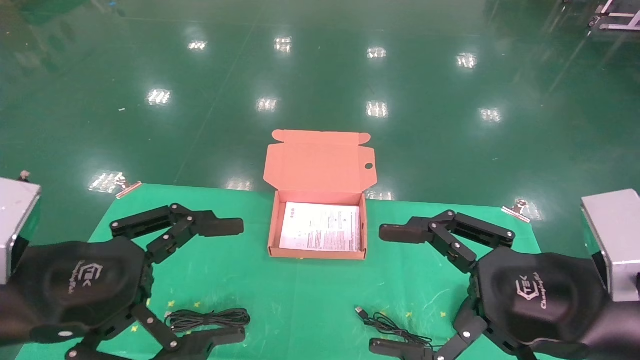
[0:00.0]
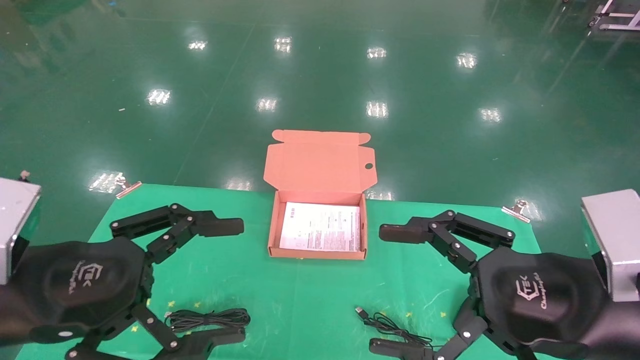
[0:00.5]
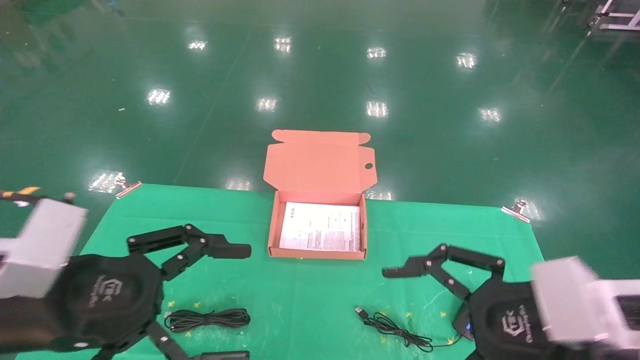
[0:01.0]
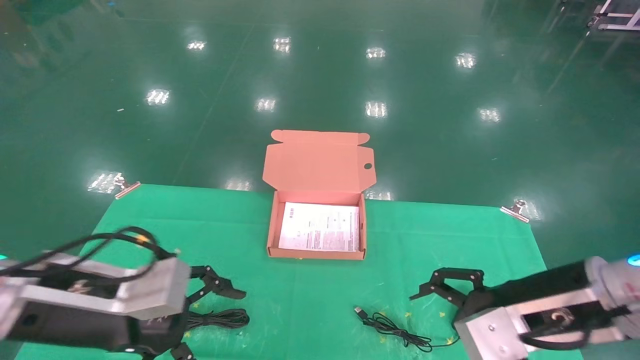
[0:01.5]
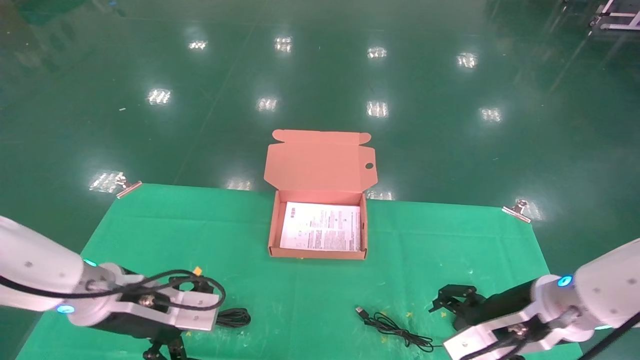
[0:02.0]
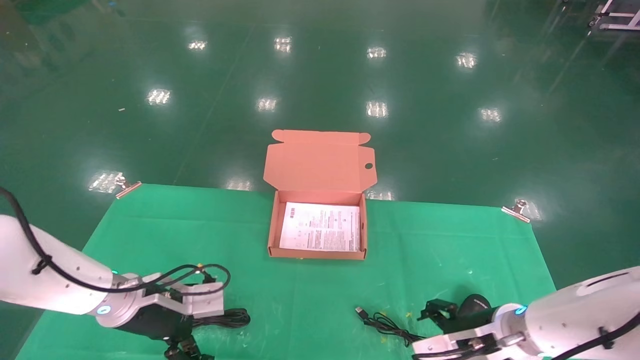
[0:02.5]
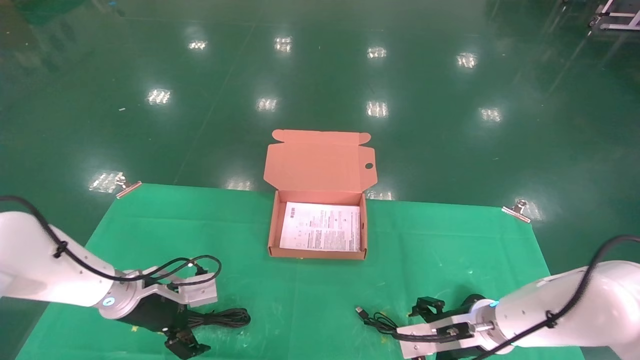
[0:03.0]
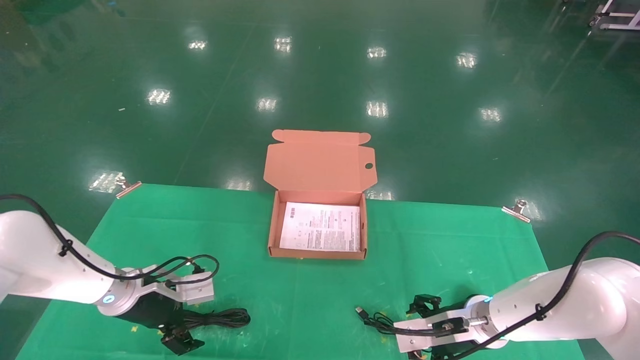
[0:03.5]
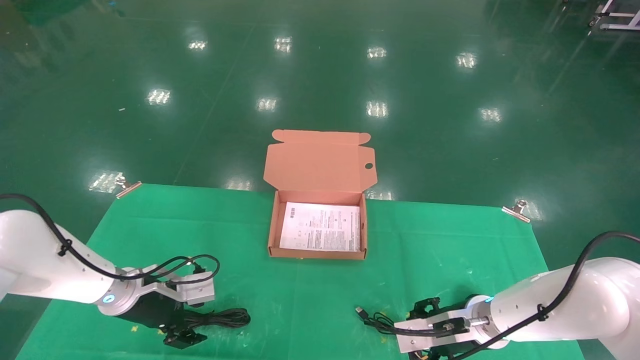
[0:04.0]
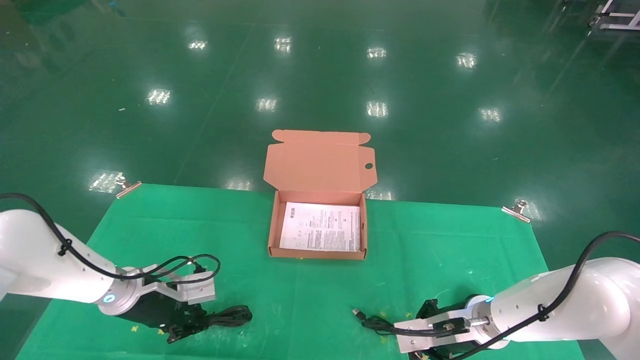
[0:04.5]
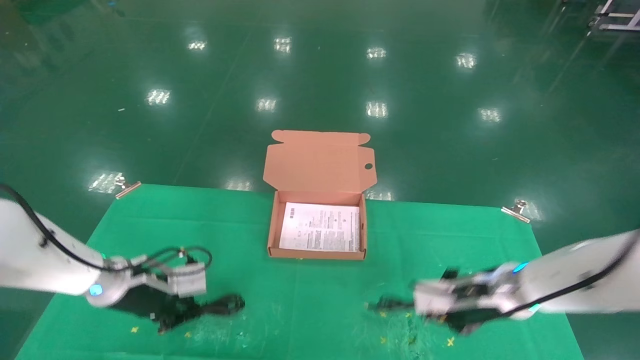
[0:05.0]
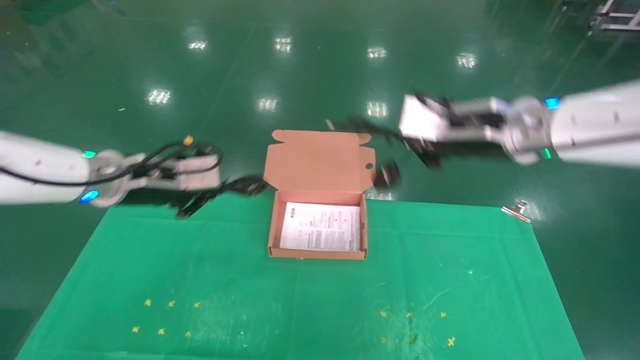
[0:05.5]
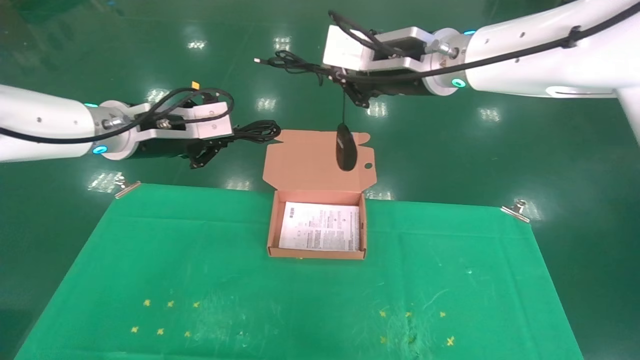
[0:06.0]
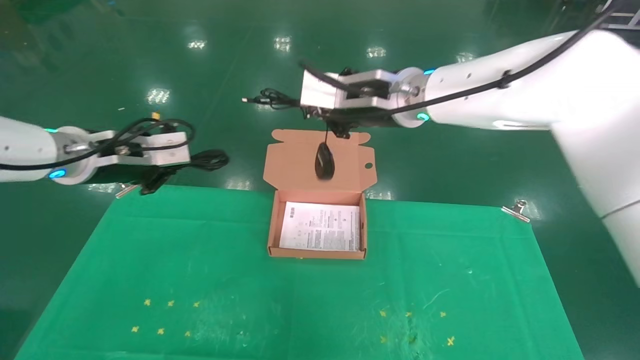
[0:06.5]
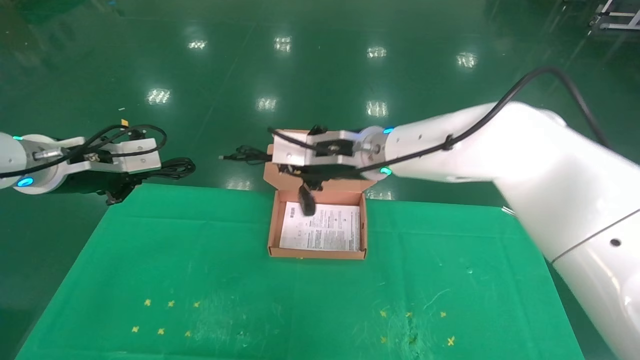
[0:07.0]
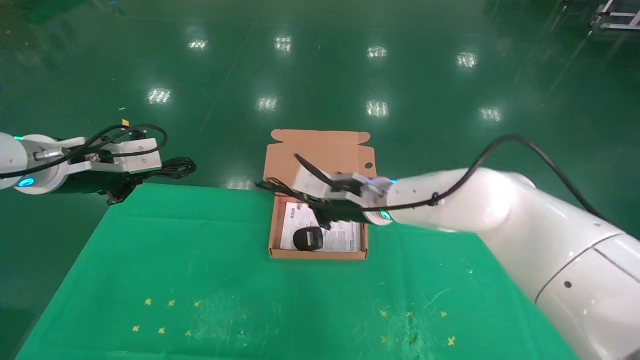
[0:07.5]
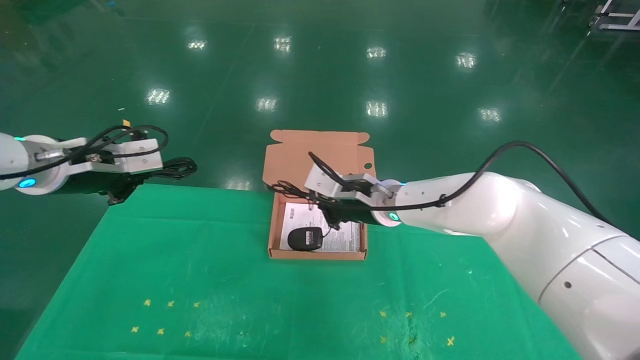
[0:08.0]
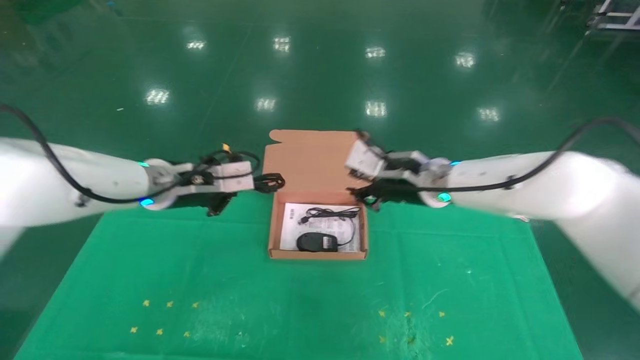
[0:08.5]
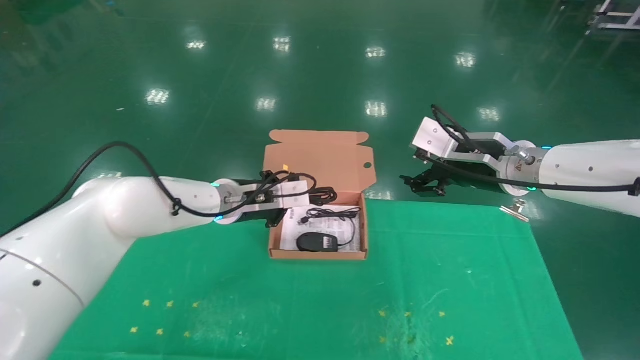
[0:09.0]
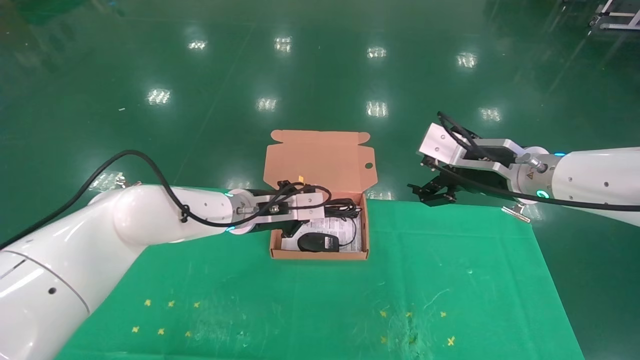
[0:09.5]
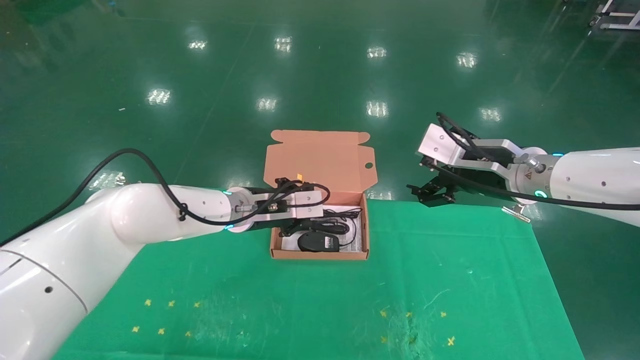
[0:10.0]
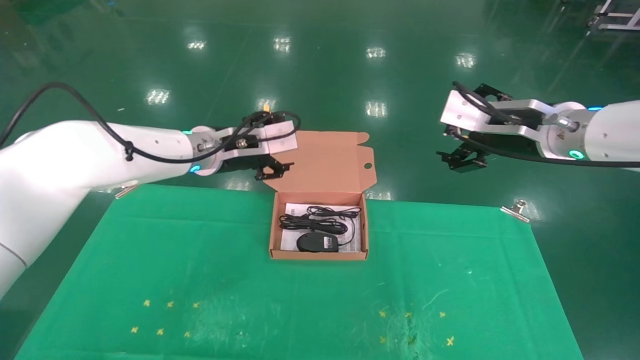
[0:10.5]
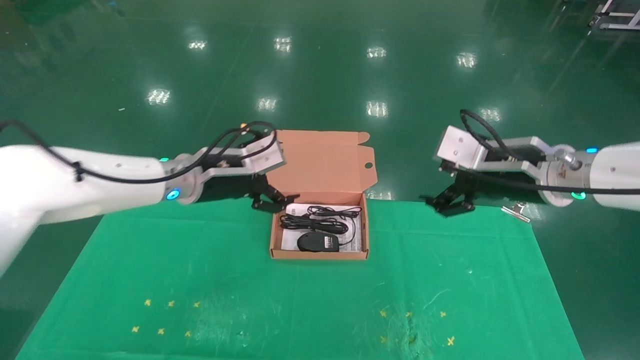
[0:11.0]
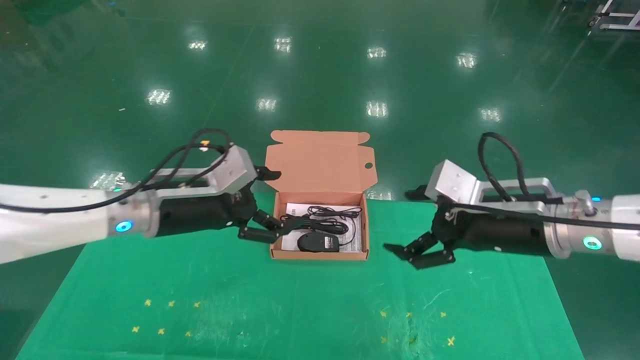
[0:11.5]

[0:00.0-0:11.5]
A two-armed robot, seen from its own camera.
Task of the whole recording: grasp data cable left put into box grasp mouse right put into box.
Step, 0:01.0 to 0:05.0: Grab and pick up both the mouse and power cord from the accessory packaging area at the same time.
Step, 0:05.5 to 0:10.5: Place the mouse and power cord into the box.
0:00.0 to 0:02.0: Both grippers move forward and downward, roughly 15 cm.
0:02.0 to 0:04.0: The right gripper shifts approximately 10 cm downward and forward; the left gripper goes approximately 10 cm forward and downward.
0:04.0 to 0:06.0: The grippers both shift upward by some 30 cm. The left gripper closes up. Meanwhile the right gripper closes its fingers.
0:06.0 to 0:07.5: The right gripper heads downward, covering some 20 cm, while the left gripper goes about 10 cm to the left.
0:07.5 to 0:09.5: The left gripper travels to the right, downward and forward by about 25 cm, while the right gripper travels to the right and backward by approximately 20 cm, and opens its fingers.
0:09.5 to 0:11.5: The right gripper heads backward, covering approximately 5 cm, while the left gripper moves to the left and backward, approximately 15 cm, and opens its fingers.

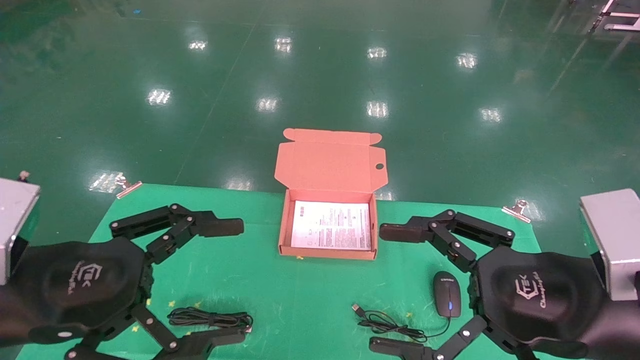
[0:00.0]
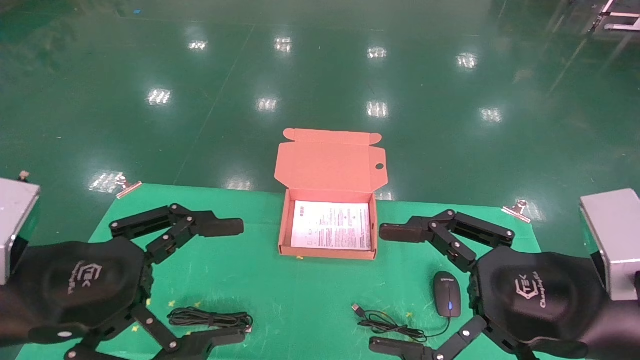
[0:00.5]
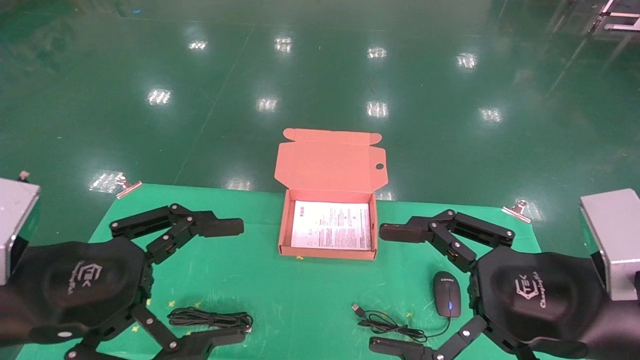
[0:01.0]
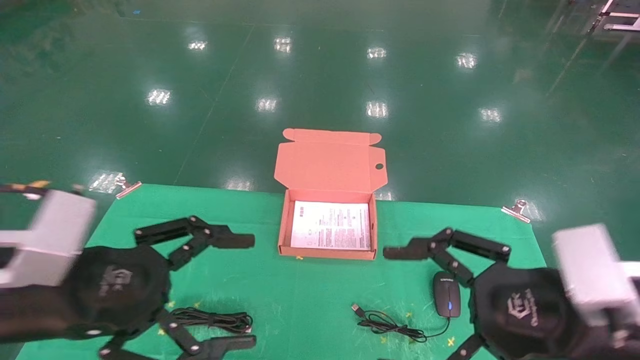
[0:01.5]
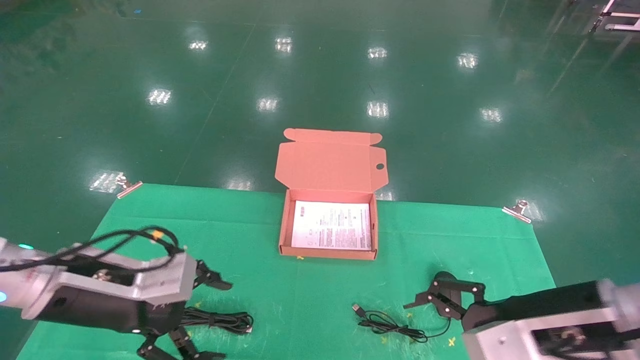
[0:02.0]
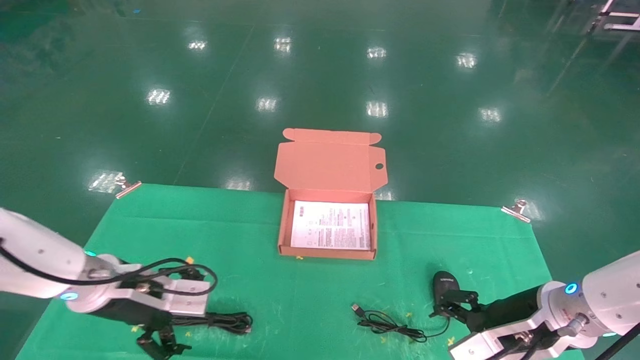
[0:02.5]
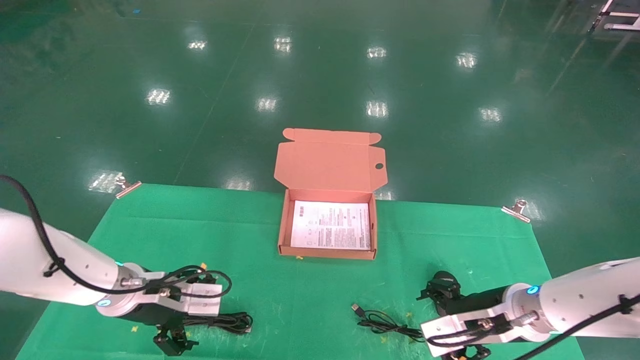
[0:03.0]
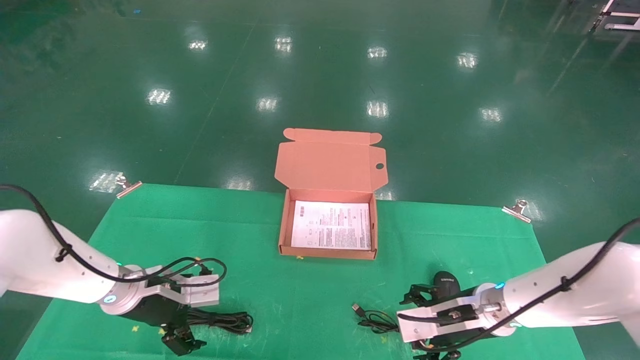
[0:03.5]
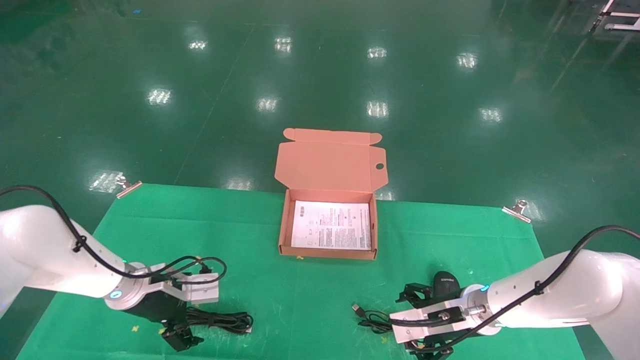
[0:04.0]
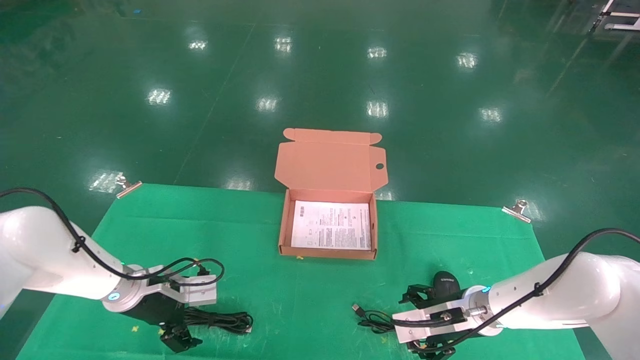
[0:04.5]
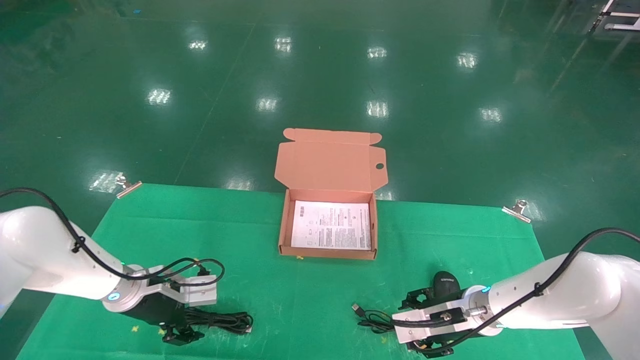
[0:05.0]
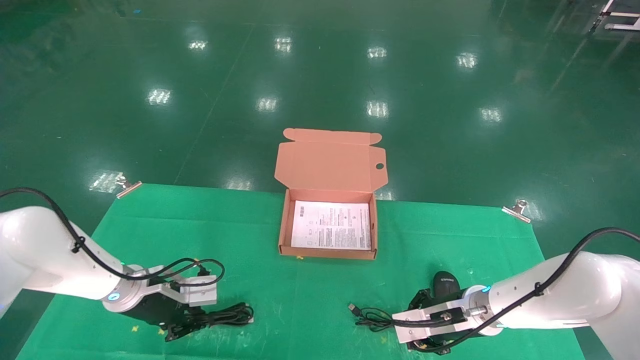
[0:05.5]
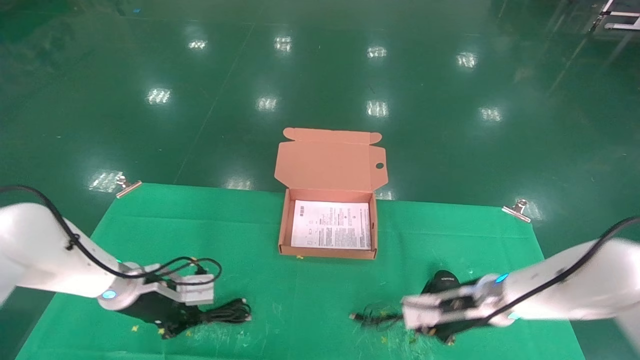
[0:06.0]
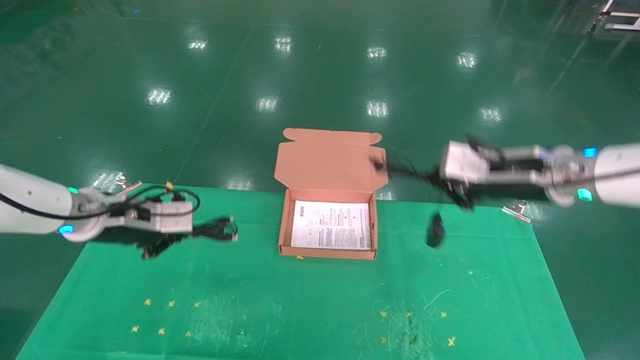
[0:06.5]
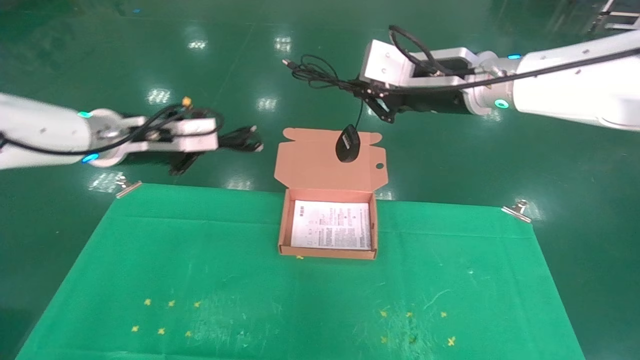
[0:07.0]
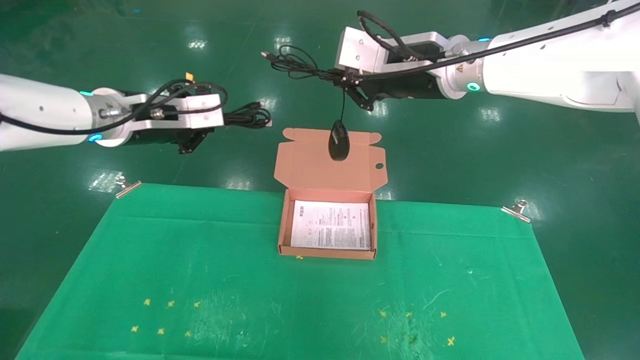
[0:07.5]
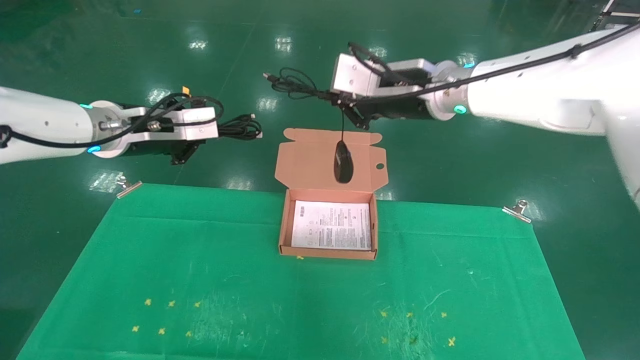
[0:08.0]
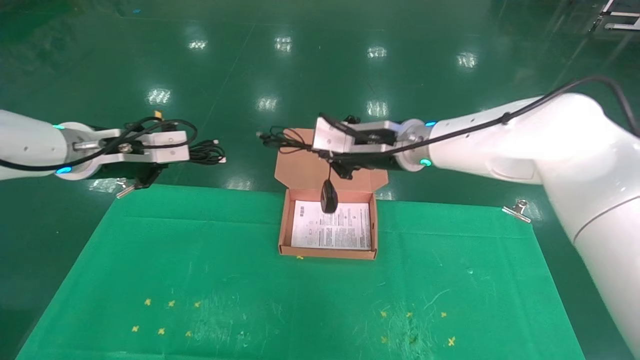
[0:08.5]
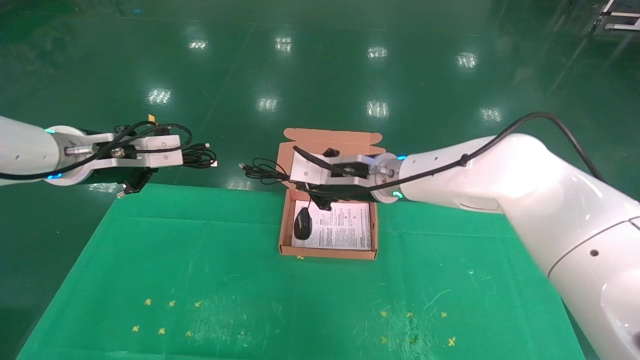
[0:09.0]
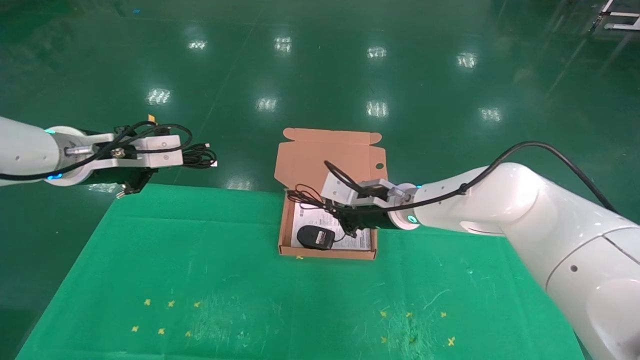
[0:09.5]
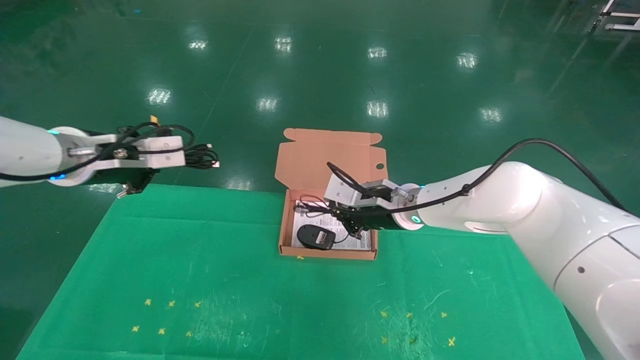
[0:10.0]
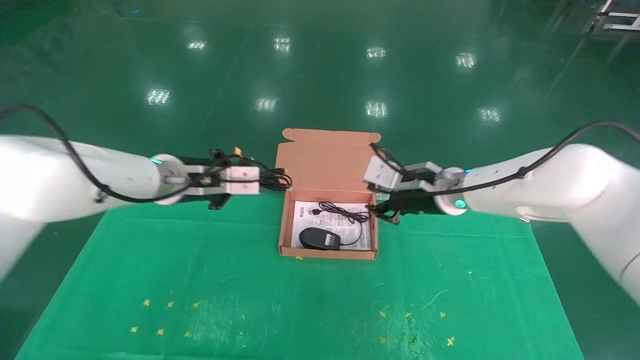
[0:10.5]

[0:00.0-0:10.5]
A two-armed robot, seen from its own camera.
Task of the whole recording: grasp data cable left put into box grasp mouse right put into box.
Step, 0:01.5 to 0:05.5: Grab and pick up both the mouse and power cord from the accessory packaging area at the same time.
0:00.0 to 0:02.0: The grippers both shift forward and downward by some 10 cm.
0:02.0 to 0:04.0: Both grippers travel together forward and downward, about 15 cm.
0:04.0 to 0:06.5: The left gripper shifts about 15 cm upward, and closes. Meanwhile the right gripper goes roughly 25 cm upward, and closes.
0:06.5 to 0:08.5: The left gripper travels upward by roughly 5 cm; the right gripper heads to the left, covering approximately 15 cm.
0:08.5 to 0:10.5: The right gripper goes roughly 10 cm to the right and downward; the left gripper travels to the right, downward and forward by roughly 10 cm.
